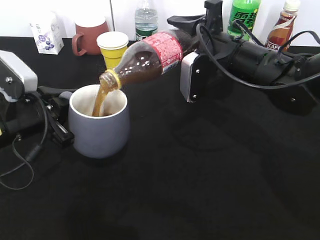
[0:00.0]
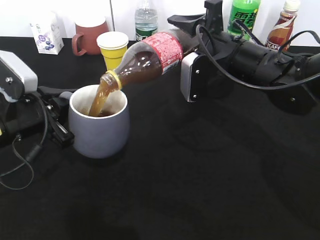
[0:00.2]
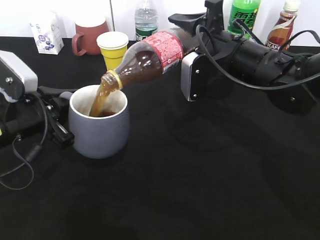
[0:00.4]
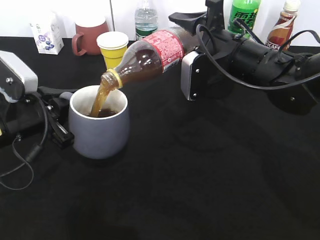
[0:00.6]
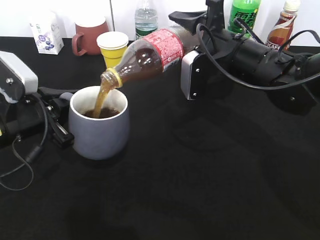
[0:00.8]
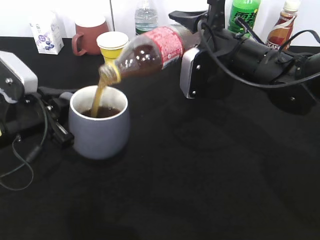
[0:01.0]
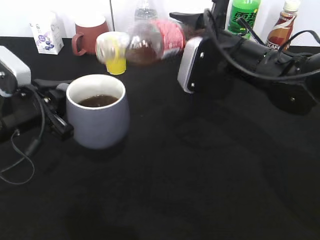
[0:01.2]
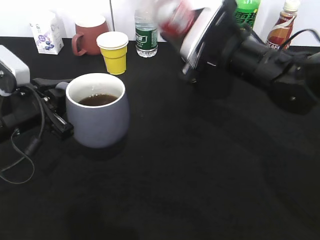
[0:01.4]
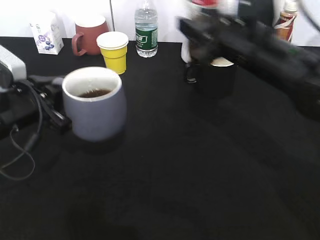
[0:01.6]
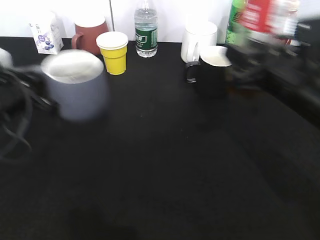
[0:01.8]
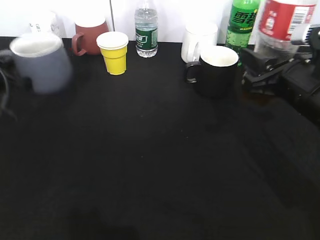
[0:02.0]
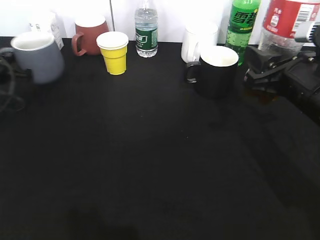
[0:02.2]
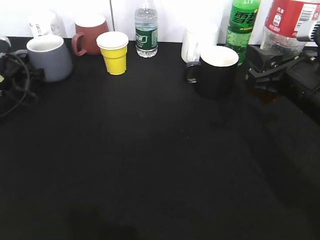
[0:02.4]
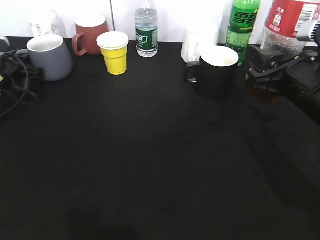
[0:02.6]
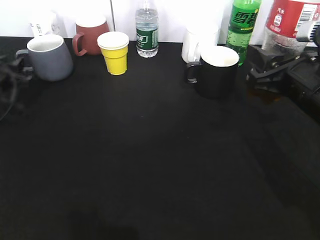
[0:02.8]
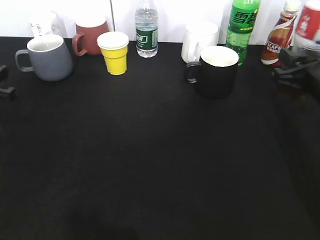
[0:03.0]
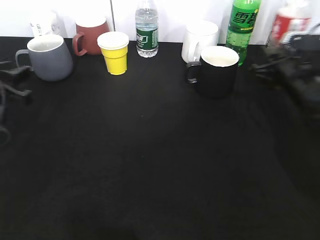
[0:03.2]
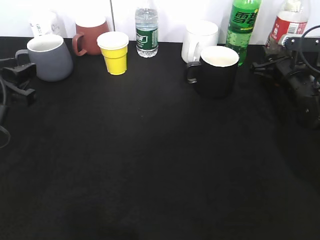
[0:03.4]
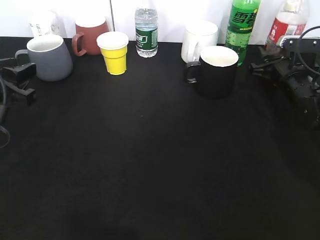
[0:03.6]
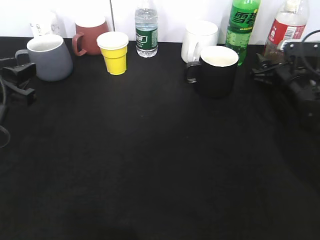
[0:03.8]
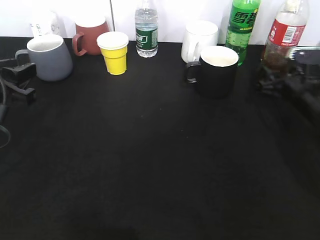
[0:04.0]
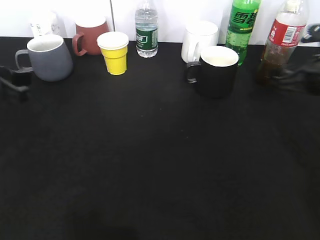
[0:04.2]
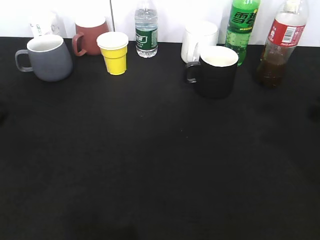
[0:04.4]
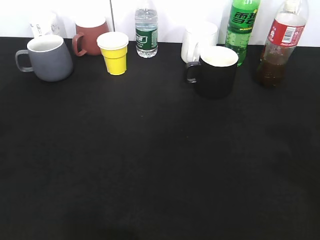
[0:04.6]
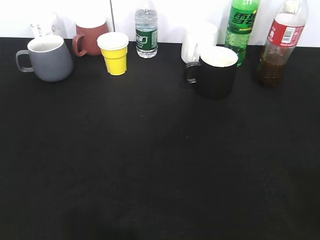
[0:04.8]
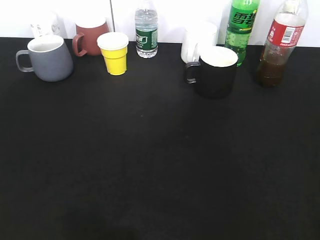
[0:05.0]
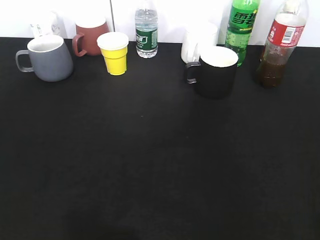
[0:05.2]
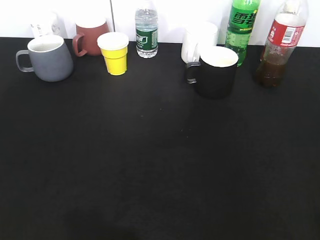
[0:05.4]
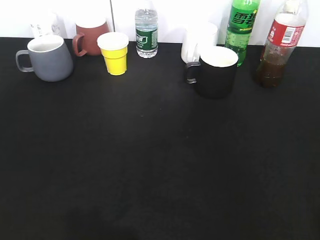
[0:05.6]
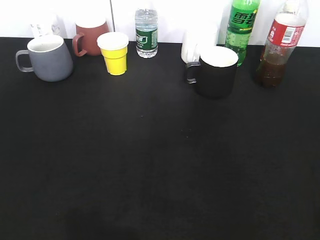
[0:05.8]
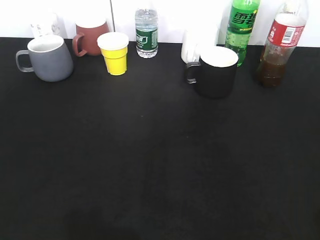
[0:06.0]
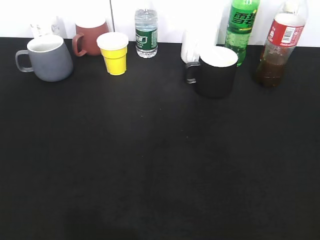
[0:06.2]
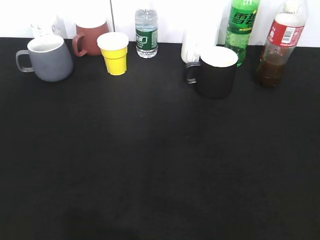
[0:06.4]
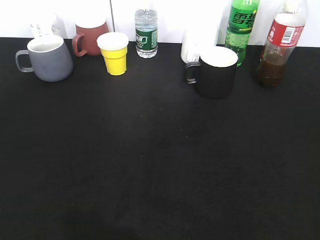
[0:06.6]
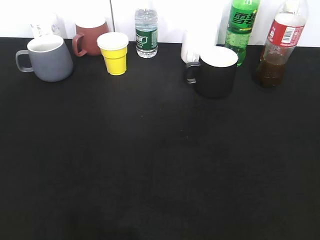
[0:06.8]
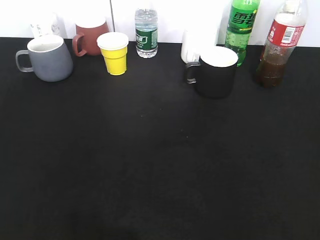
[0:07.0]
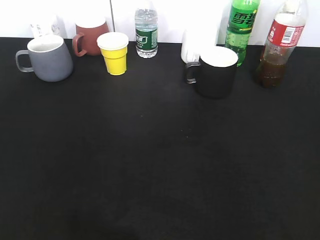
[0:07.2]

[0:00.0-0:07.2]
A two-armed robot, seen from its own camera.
Step, 1.0 to 3.0 s: Place the grey cup on the table with left gripper.
Step, 3.2 to 4.2 s: Place the cola bottle on the table with right gripper.
1.4 to 2.8 s: The right gripper goes approximately 15 cm to the right and backward. The left gripper travels forward and to the left by roughly 15 cm, and opens up.
2.8 to 4.4 s: The left gripper is displaced backward and upward by roughly 20 cm. The right gripper is displaced to the right by roughly 5 cm, goes forward and returns, approximately 15 cm each way, and opens up.
4.4 to 5.8 s: The two grippers go approximately 20 cm backward. The left gripper opens its fingers.

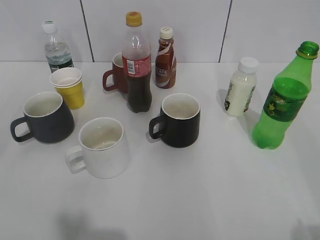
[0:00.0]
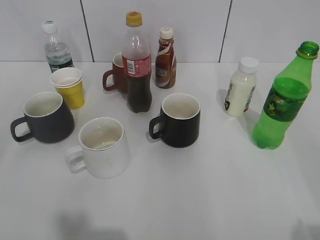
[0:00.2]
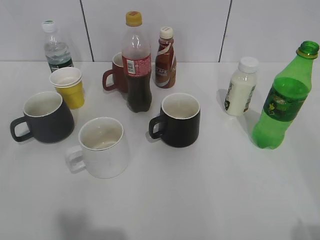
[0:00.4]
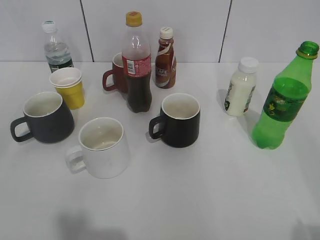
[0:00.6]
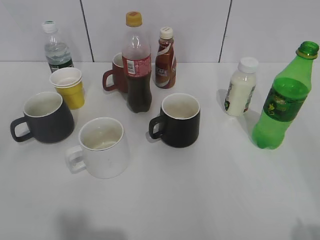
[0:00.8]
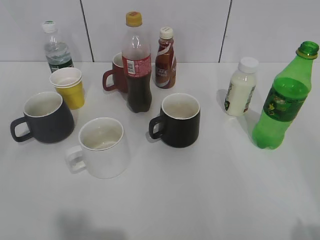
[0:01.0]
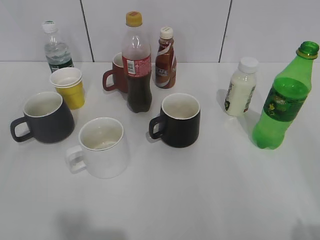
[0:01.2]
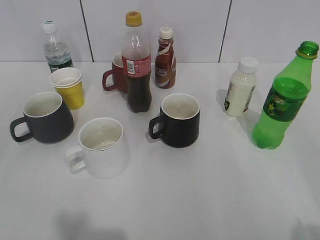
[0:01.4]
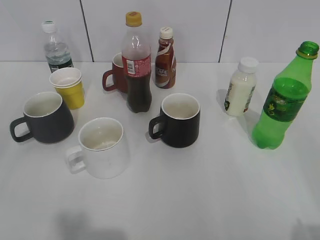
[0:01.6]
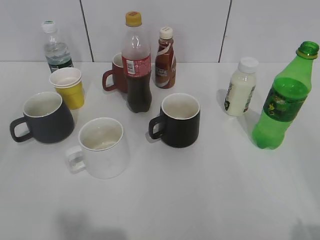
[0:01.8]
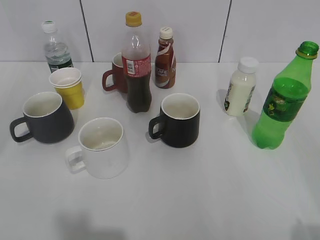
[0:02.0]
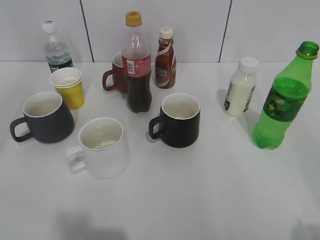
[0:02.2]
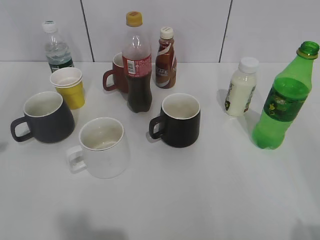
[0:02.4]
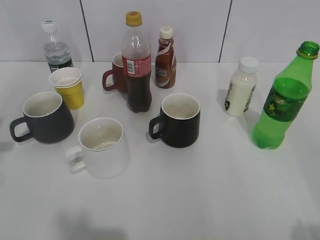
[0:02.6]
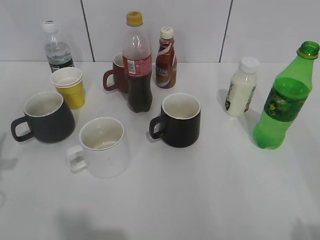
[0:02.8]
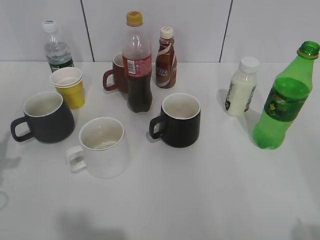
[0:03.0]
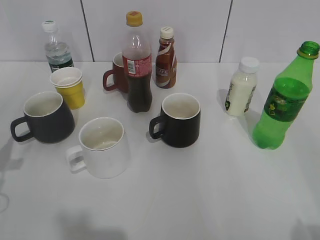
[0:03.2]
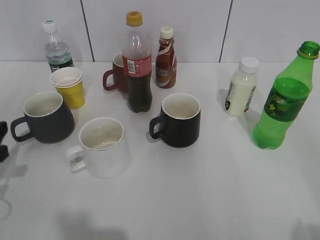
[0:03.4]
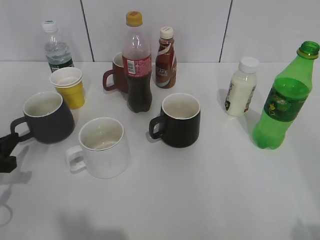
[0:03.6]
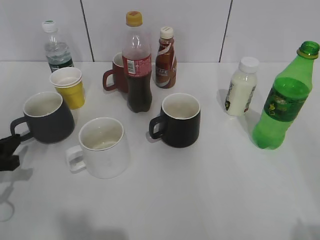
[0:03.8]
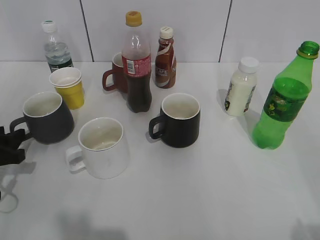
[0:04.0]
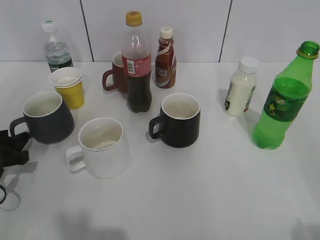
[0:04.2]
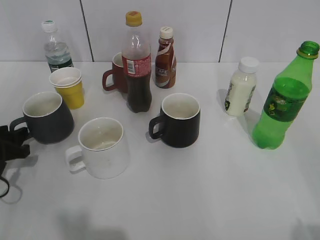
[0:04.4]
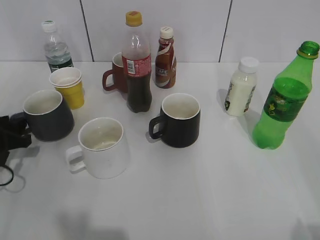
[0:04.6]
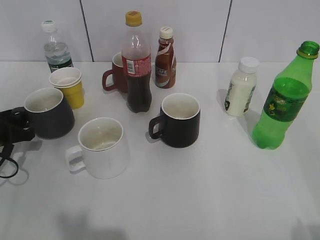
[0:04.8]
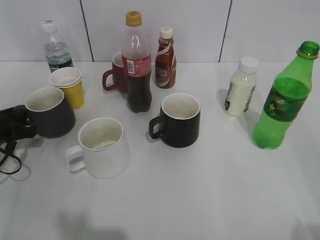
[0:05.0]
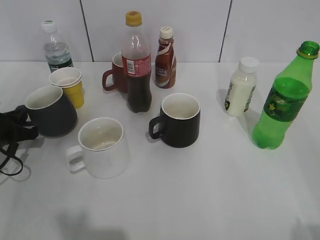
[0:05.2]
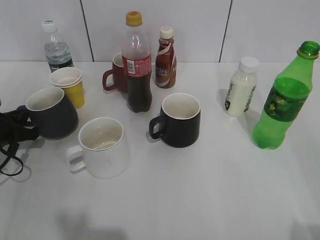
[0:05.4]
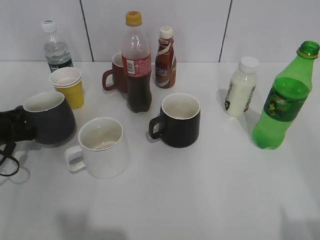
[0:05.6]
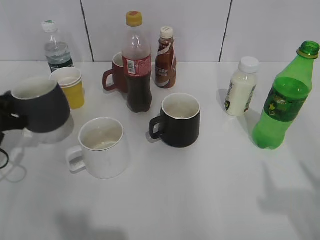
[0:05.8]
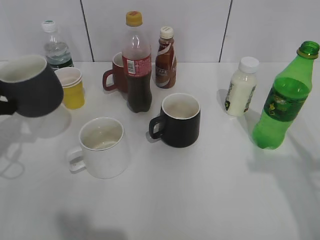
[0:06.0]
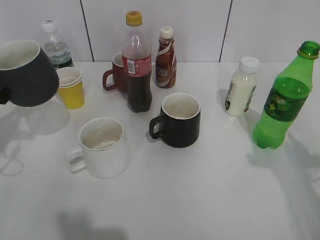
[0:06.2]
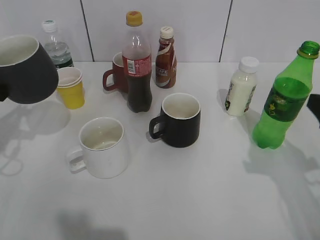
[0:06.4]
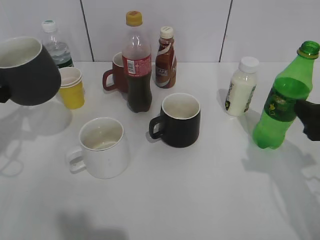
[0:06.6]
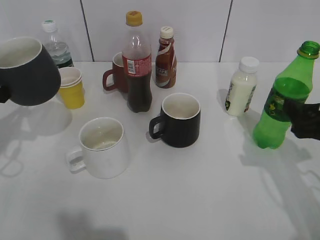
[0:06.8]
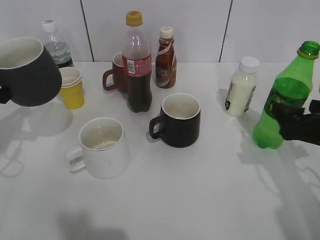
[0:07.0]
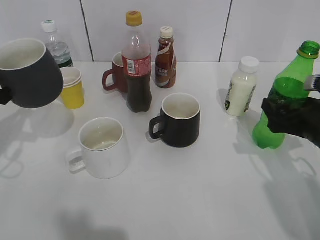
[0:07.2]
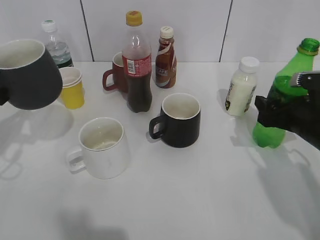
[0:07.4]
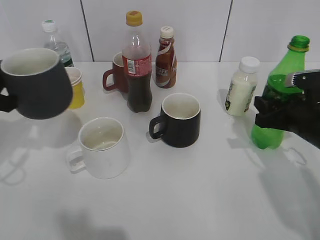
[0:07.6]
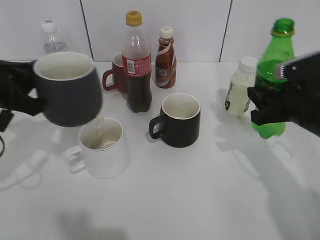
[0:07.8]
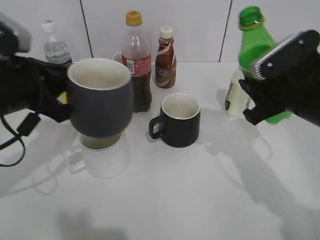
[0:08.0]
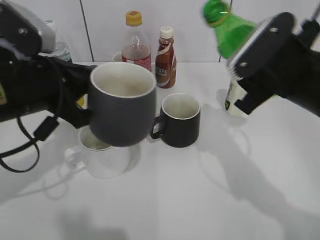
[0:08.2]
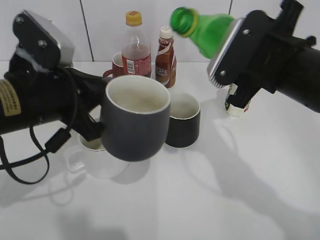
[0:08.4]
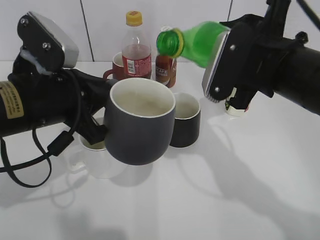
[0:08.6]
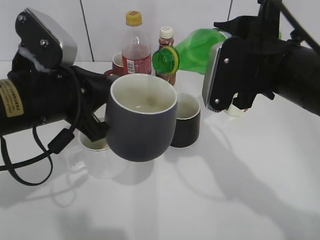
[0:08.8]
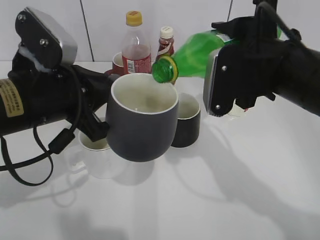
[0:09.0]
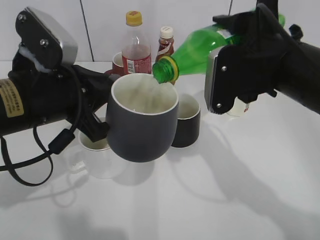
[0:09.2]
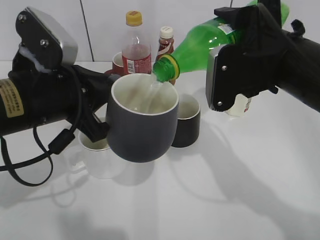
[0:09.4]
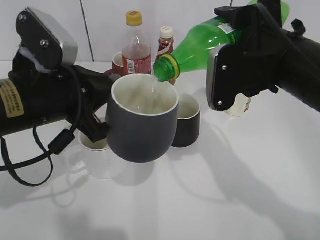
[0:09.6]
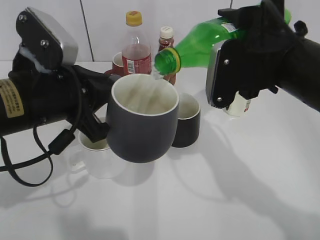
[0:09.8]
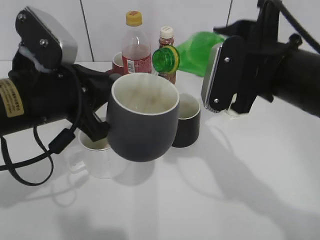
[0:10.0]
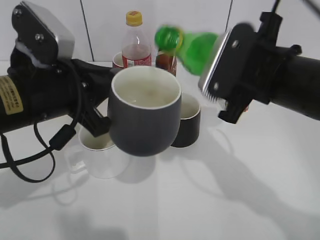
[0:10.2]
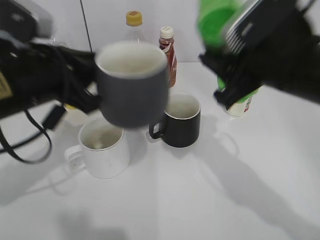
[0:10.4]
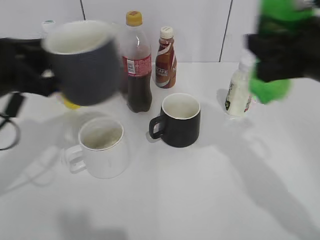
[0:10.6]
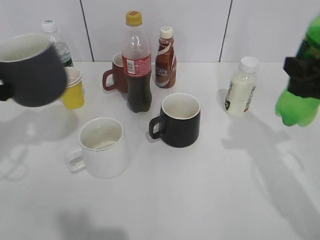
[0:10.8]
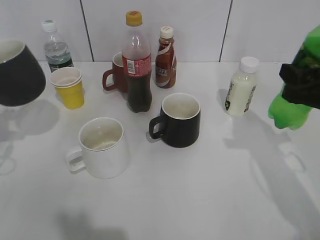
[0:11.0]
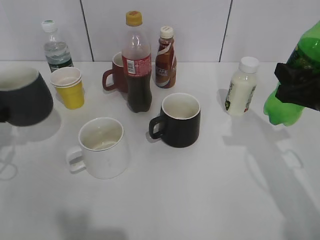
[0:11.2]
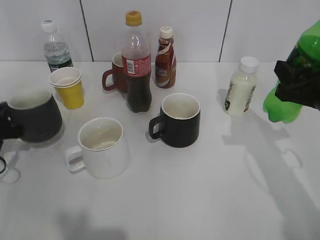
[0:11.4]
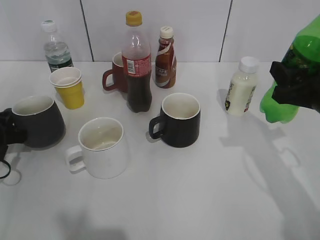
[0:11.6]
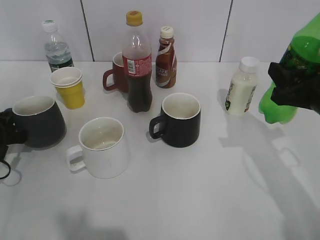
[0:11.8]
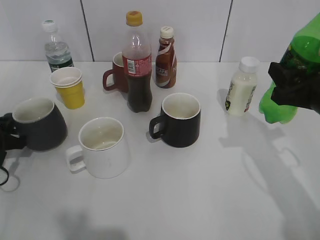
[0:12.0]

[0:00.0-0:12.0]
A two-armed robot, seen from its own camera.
Step, 3.4 to 5.2 s: Grasp the grey cup with left gripper.
Step, 5.4 to 6.4 s: Lift the grey cup with left gripper.
Step, 6.6 to 7.4 s: Grasp the bottle with sprite with right gripper.
Step, 7.6 to 10.2 s: Pour the sprite from bottle to cup with right gripper.
1.6 to 3.0 s: The left gripper is displaced forward and downward by approximately 25 cm.
3.0 to 4.4 s: The left gripper heads downward and forward, covering about 10 cm.
4.4 to 6.0 s: The right gripper goes roughly 10 cm forward; the left gripper moves upward, approximately 5 cm, and closes.
6.0 to 7.6 s: The right gripper is displaced downward and forward by some 25 cm, and closes its fingers. The left gripper travels upward by about 5 cm.
7.6 to 9.0 s: The left gripper moves to the right, approximately 15 cm. Meanwhile the right gripper heads upward and to the left, covering approximately 15 cm.
10.4 to 12.0 s: The left gripper is displaced to the left and downward by some 25 cm, while the right gripper heads to the right and downward, covering some 10 cm.

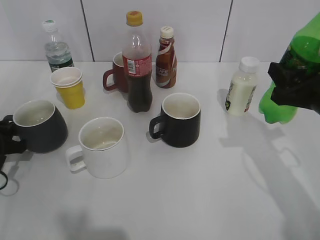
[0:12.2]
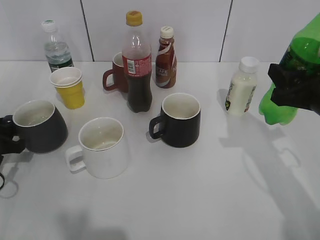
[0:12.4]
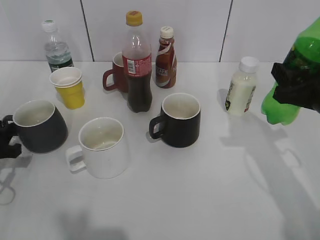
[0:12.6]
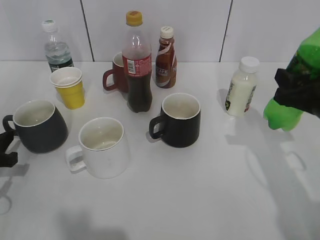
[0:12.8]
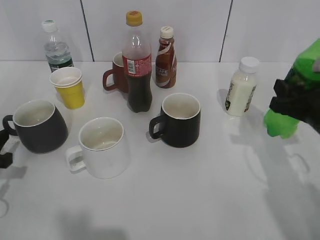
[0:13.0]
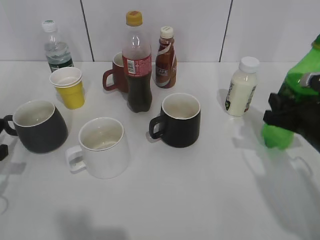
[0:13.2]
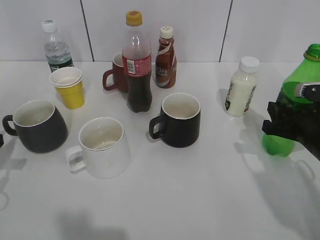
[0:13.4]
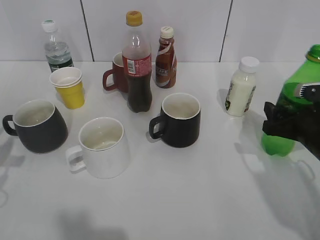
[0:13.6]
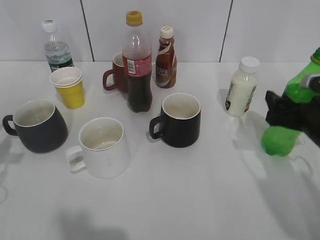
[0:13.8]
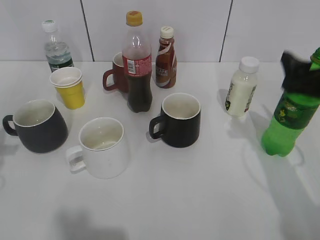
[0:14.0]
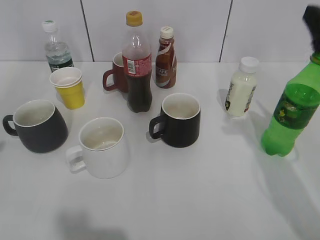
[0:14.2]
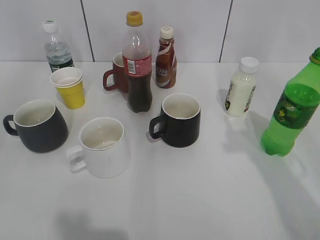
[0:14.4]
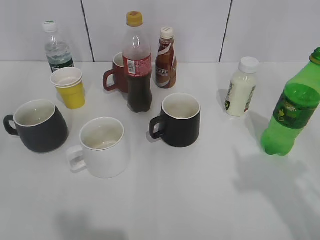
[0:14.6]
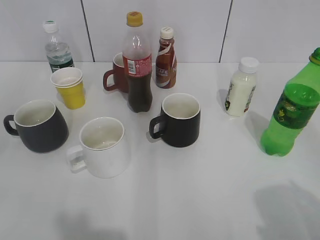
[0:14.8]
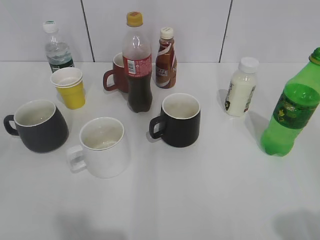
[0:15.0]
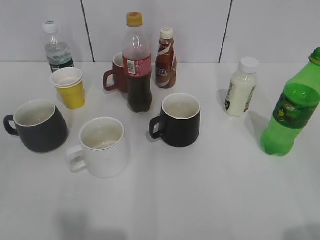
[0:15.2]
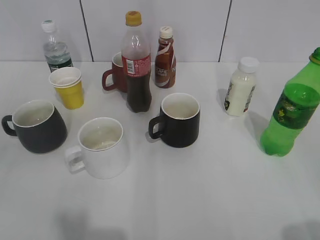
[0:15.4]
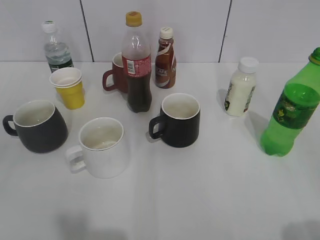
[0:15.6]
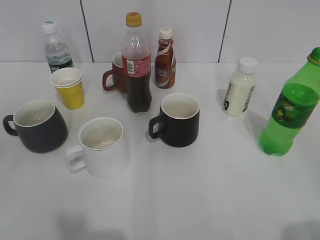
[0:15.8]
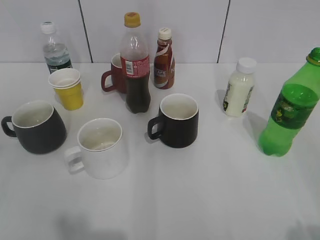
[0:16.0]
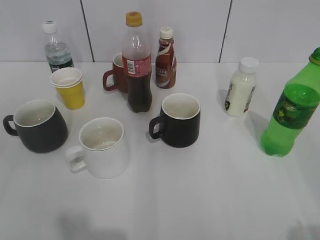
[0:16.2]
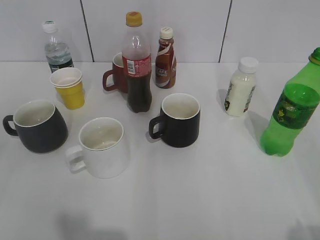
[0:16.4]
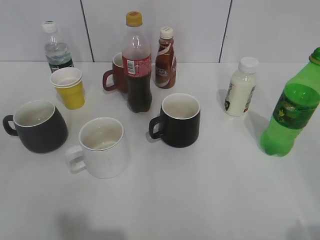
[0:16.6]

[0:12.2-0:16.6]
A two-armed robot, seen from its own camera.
Step, 12.8 to 13.8 s: Place the sprite bottle on the table with right gripper.
12.2 to 13.6 s: The left gripper moves upward and backward, approximately 10 cm, and opens up; the right gripper shifts approximately 10 cm downward, and opens up.
13.6 to 15.2 s: The grippers both shift backward and upward by about 30 cm. The left gripper opens up. The right gripper opens, then closes once more.
